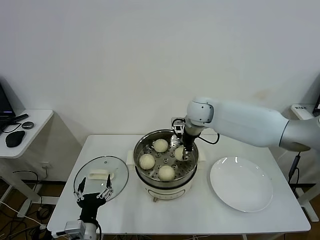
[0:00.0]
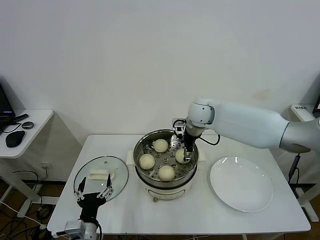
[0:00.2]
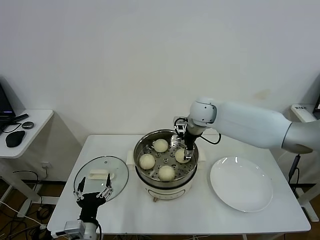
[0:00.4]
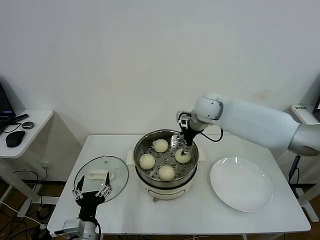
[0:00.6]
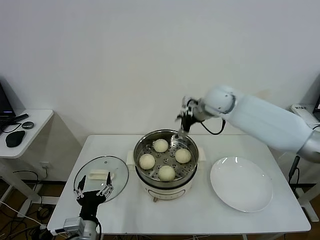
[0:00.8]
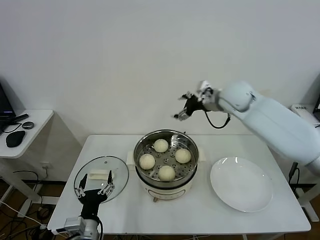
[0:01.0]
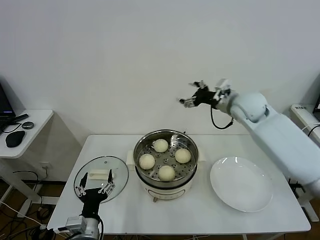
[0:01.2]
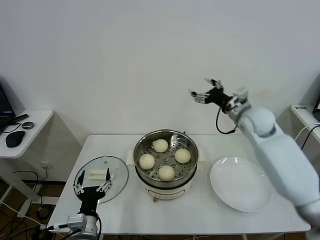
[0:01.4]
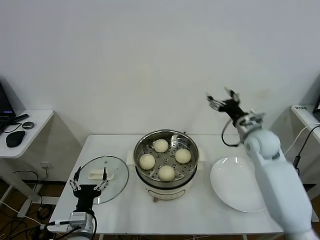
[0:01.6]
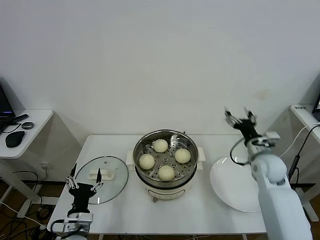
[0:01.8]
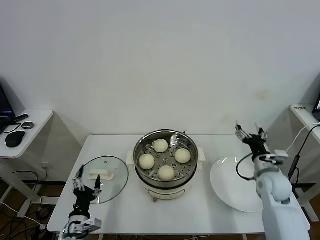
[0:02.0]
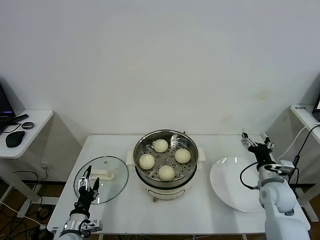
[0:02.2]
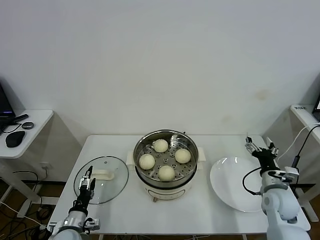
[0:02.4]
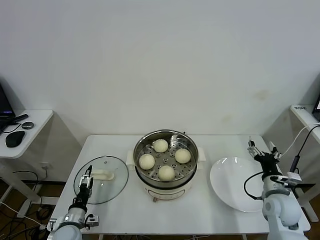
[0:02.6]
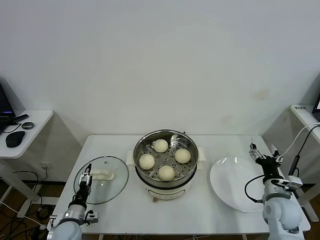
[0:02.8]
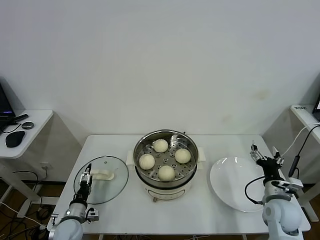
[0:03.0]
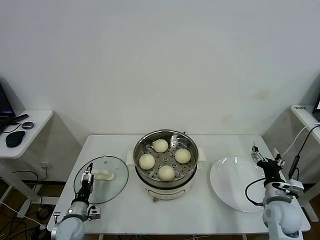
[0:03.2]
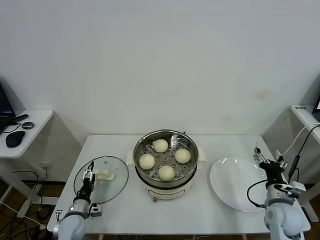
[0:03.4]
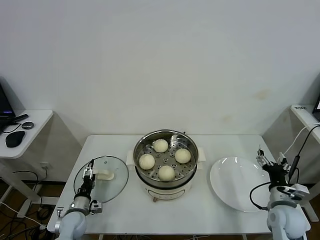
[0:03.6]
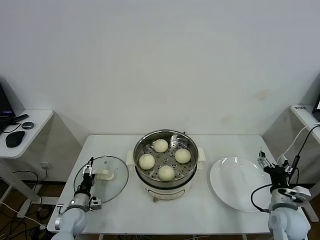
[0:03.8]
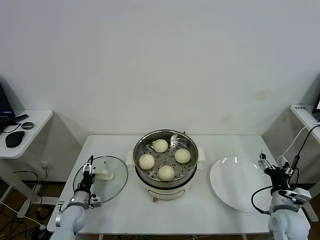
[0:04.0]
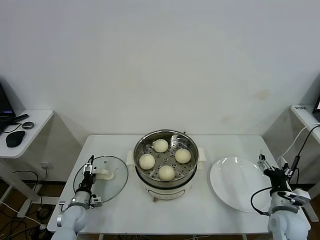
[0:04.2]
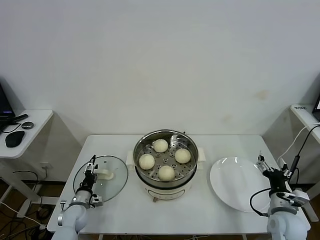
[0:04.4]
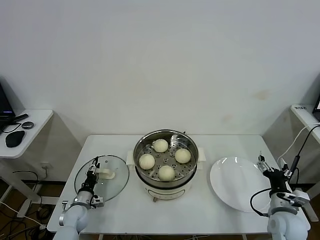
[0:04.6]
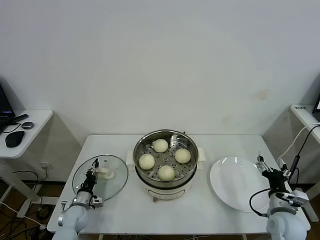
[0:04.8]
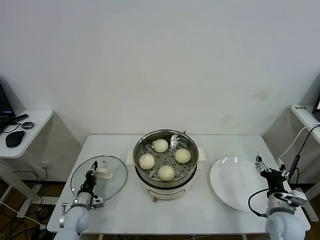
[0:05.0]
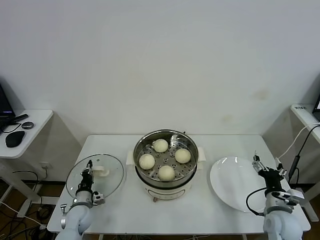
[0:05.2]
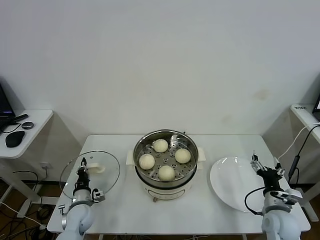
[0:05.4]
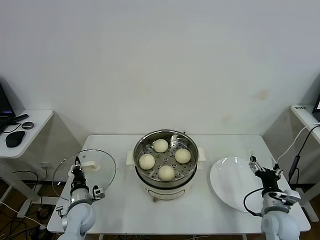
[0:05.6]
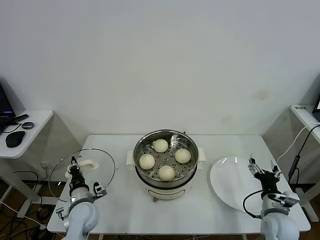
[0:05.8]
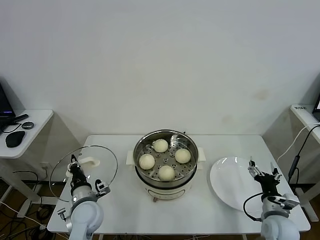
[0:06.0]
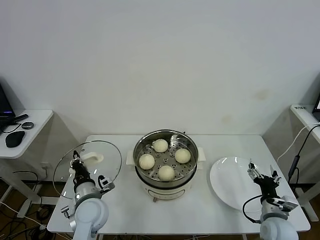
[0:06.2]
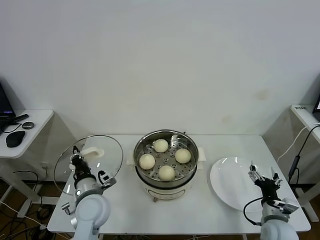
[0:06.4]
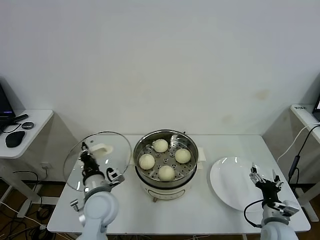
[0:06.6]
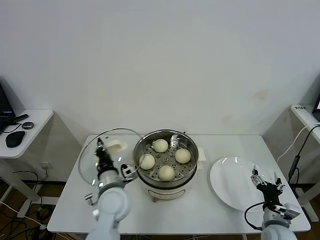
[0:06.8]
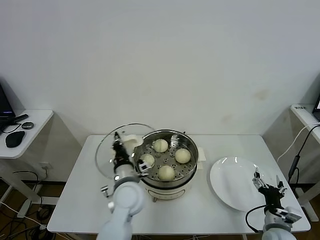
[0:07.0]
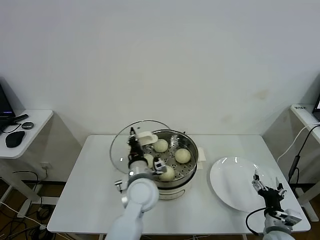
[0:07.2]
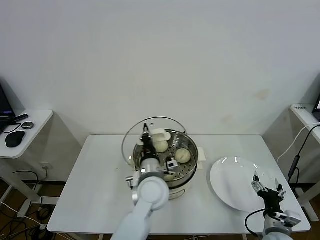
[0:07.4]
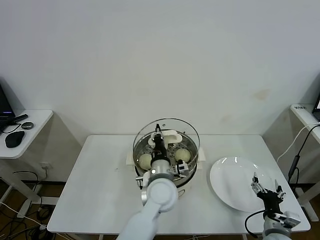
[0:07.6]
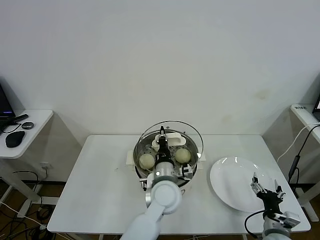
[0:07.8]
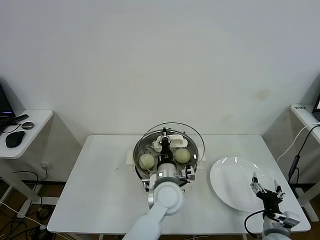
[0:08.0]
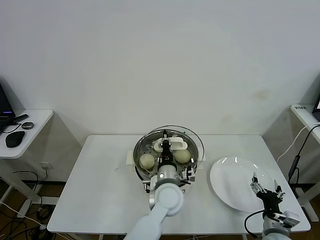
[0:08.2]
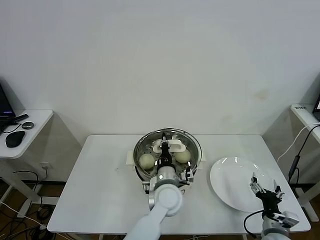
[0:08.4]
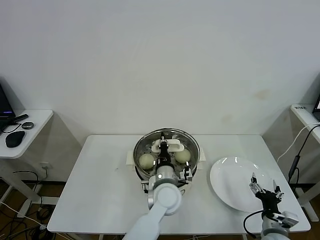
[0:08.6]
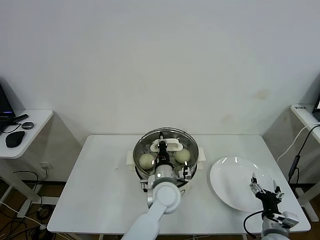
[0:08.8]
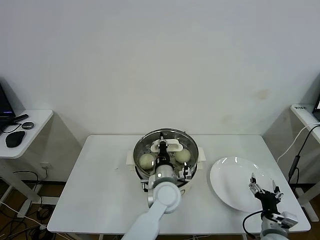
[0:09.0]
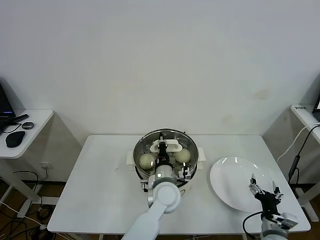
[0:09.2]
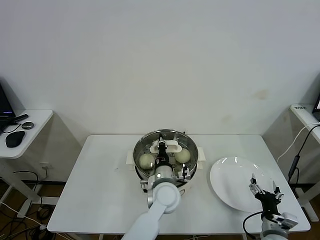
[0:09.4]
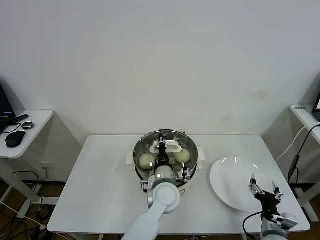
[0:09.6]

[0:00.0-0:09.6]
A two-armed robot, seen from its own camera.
Task of the whole recording: take steamed baozi put them in steamer.
Step, 0:01.0 to 0:05.0: Grasp the pot lid with left gripper.
0:00.0 to 0:01.6: The right gripper shifts about 20 cm to the right and backward, and opens up.
0:01.6 to 0:03.2: The right gripper shifts approximately 25 cm backward and downward. The left gripper moves downward, to the left and forward, about 20 cm.
0:03.2 to 0:04.8: The left gripper moves forward, about 5 cm, and closes up.
0:04.8 to 0:06.4: The left gripper shifts about 25 cm upward and to the right, and closes its fingers.
0:06.4 to 0:08.0: The left gripper is displaced to the right by some 20 cm.
0:08.0 to 0:09.6: The grippers stay close to where they were, moving slightly.

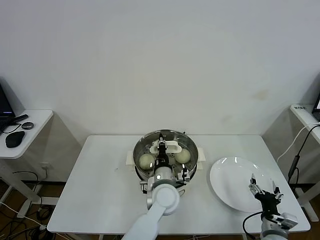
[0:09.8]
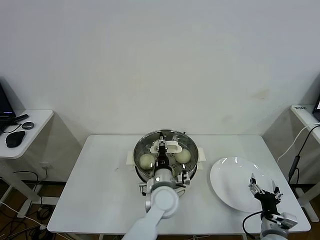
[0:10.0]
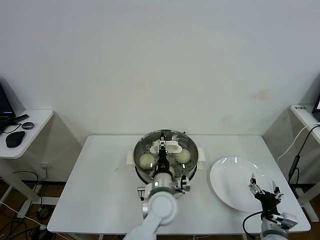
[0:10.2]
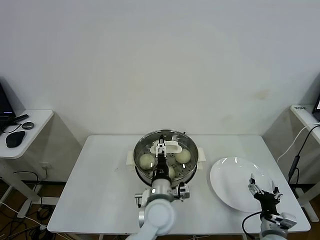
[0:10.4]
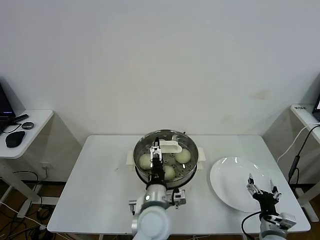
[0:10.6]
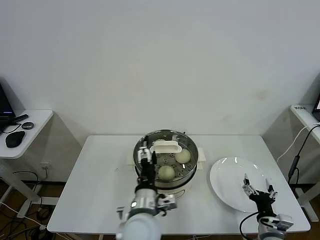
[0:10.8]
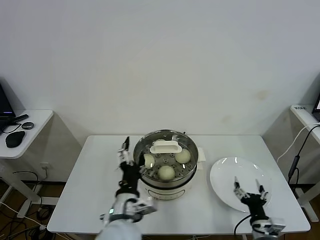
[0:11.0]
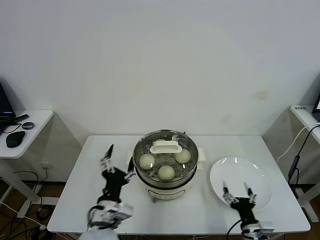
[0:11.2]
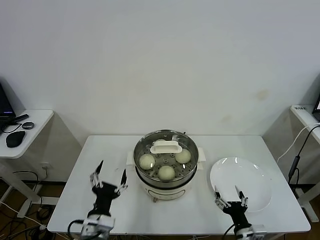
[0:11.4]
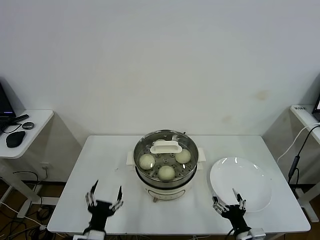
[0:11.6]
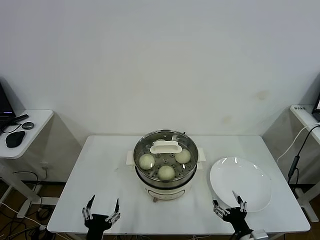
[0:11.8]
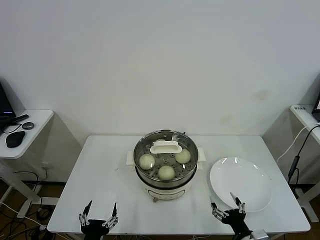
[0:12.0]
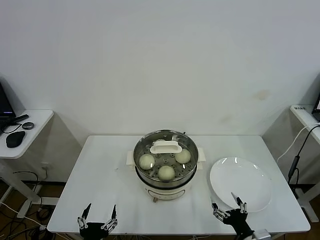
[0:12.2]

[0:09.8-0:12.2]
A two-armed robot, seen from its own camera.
Task of the whole recording: take steamed baozi put them in steamer.
0:09.8 to 0:11.0: The left gripper is displaced backward, to the left and upward by about 15 cm, and opens.
0:11.0 to 0:12.2: The right gripper ends up about 5 cm from where it was. Meanwhile the left gripper goes about 20 cm to the left, backward and downward.

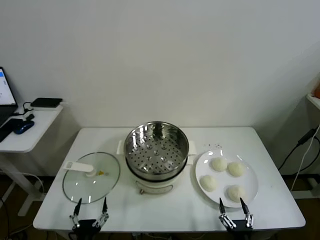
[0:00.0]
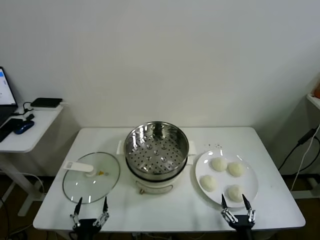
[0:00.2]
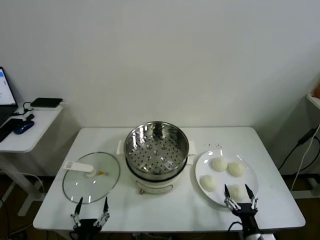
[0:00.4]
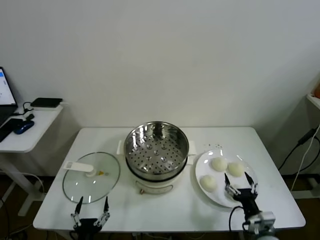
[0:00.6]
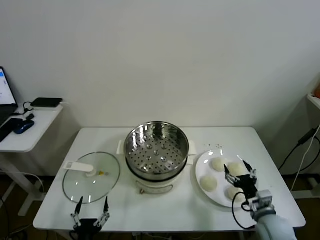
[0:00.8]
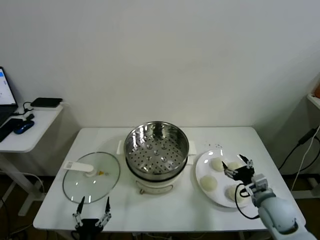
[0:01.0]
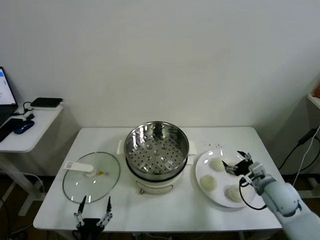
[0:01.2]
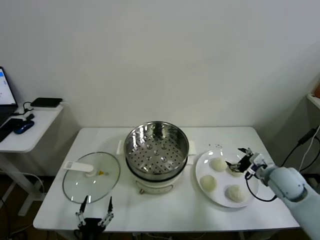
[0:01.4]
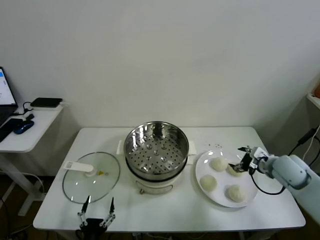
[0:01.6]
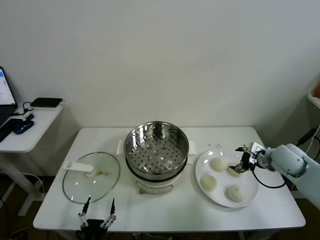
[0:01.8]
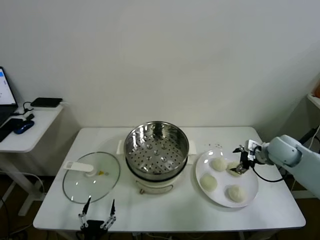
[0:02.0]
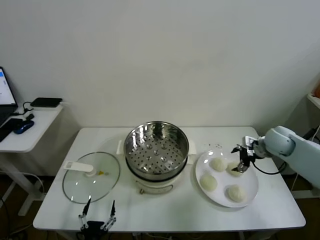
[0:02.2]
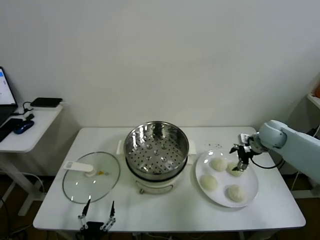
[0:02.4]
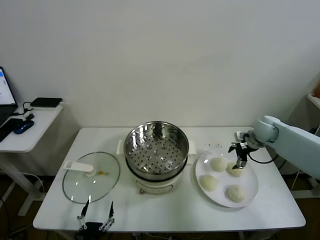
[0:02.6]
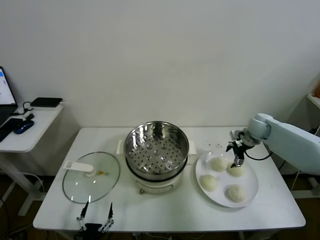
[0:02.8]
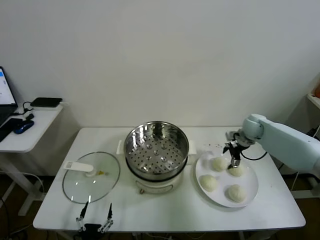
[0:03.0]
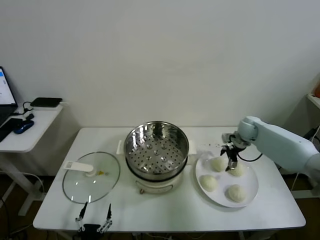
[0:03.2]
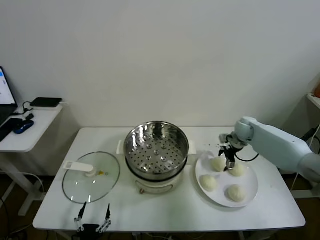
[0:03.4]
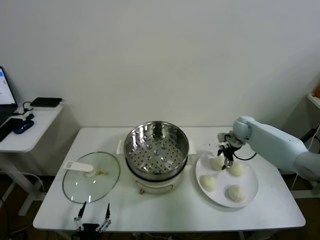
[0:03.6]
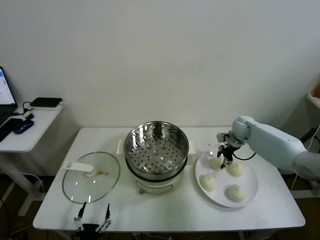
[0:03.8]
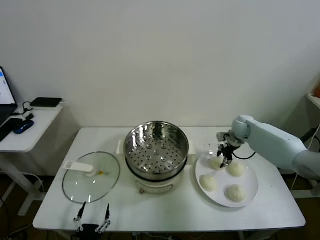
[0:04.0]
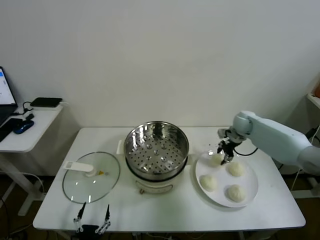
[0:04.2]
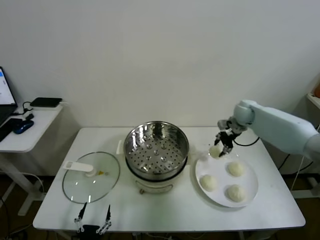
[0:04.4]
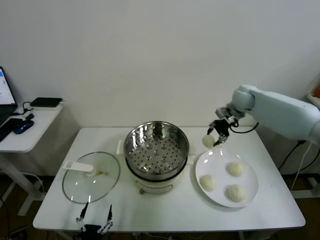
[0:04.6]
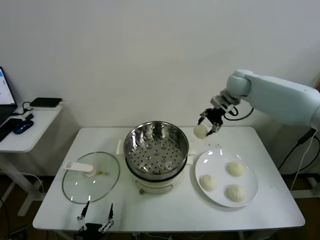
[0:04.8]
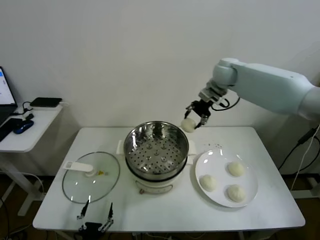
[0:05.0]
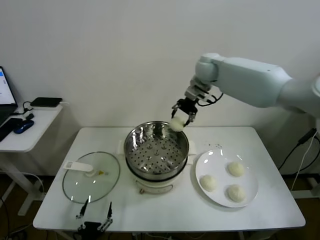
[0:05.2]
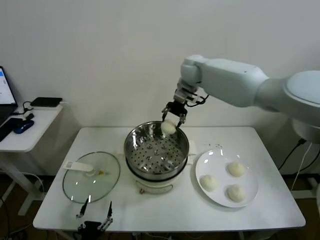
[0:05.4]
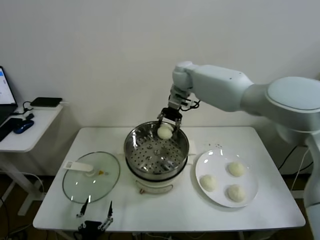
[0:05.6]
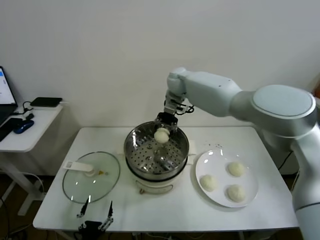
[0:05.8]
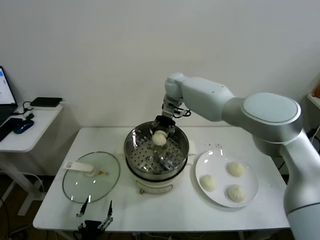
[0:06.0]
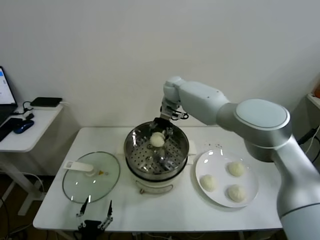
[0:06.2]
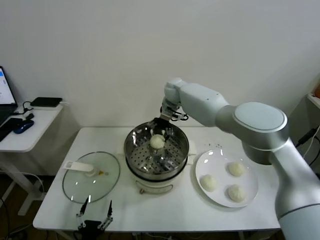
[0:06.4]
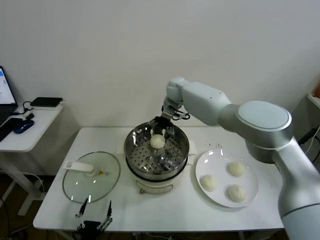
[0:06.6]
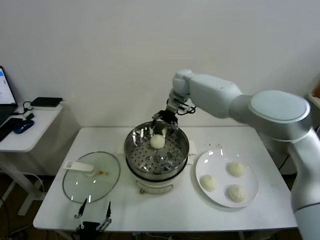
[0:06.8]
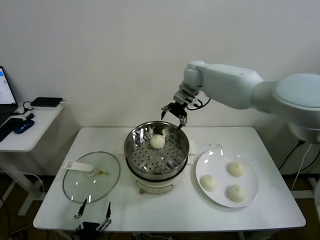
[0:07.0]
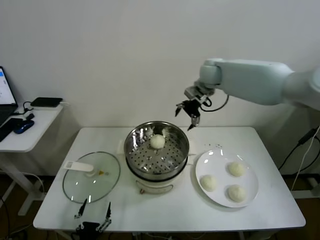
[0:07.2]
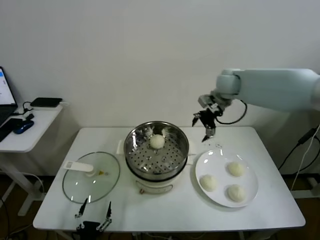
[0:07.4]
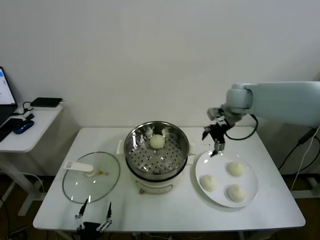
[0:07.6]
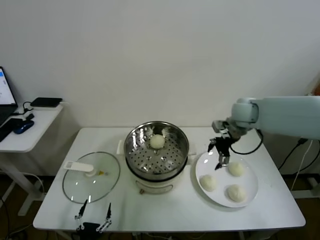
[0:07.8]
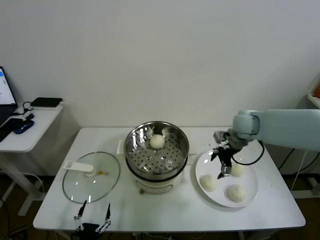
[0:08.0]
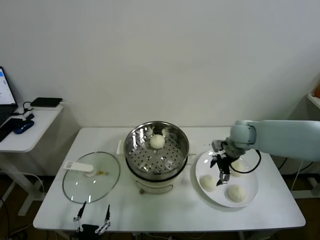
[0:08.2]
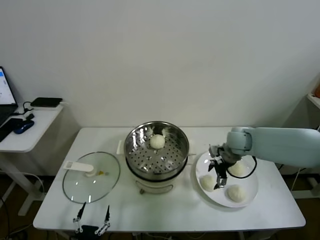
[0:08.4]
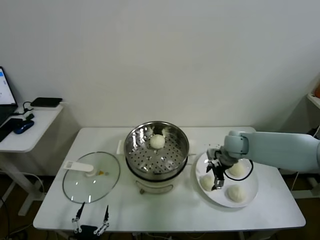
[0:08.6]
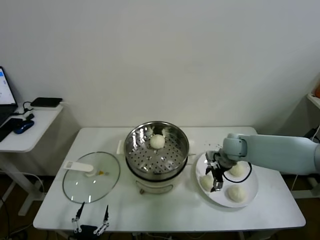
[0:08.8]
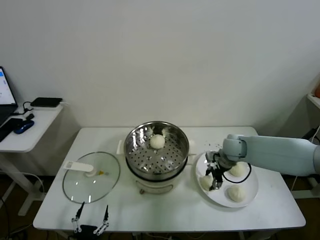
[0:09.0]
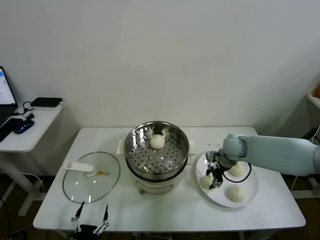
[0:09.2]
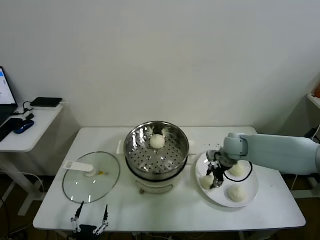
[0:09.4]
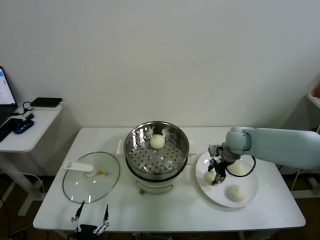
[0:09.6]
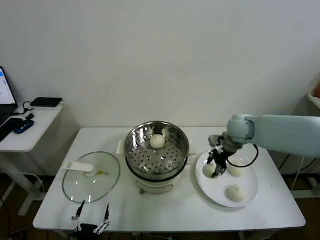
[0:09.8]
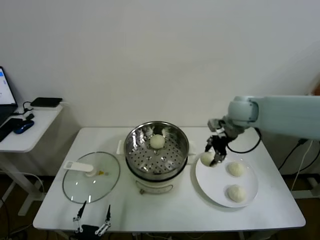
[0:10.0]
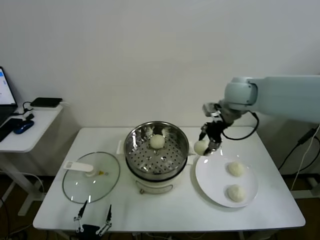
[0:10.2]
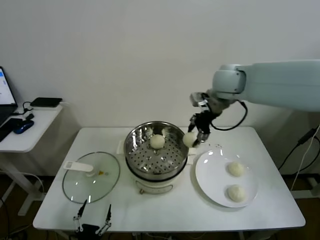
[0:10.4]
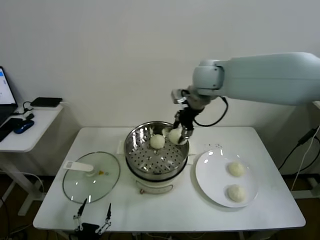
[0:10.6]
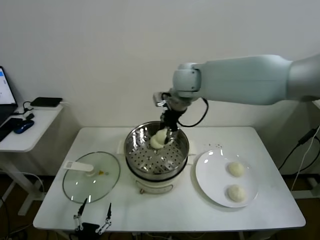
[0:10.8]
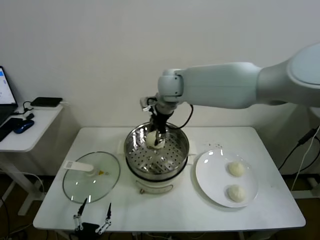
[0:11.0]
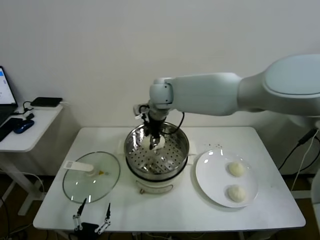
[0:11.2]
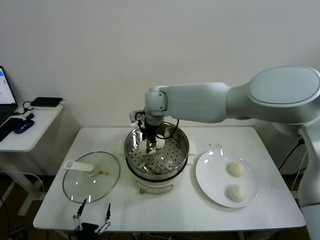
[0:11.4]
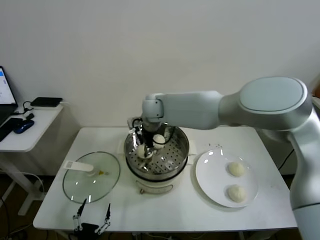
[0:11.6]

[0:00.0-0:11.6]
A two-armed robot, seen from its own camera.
Task of the whole recording: take steamed baozi put them in steamer.
Step, 0:00.0 to 0:03.6: Grasp the baozi in the plate with right gripper.
Step, 0:03.8 to 0:06.4: Place the baozi on the steamer with right gripper.
Step, 0:06.6 to 0:09.0: Grasp the baozi in the plate with right gripper.
0:01.4 to 0:02.8: The right gripper shifts approximately 20 cm forward.
0:02.8 to 0:04.4: The right gripper moves upward and to the left, roughly 10 cm, and closes.
0:04.4 to 0:05.8: The right gripper heads to the left, covering roughly 25 cm.
0:05.8 to 0:07.2: The right gripper heads to the right, covering about 15 cm, and opens.
0:07.2 to 0:08.8: The right gripper moves downward and backward, roughly 25 cm.
0:08.8 to 0:10.2: The right gripper travels upward by roughly 25 cm, and closes up.
0:10.2 to 0:11.6: The right gripper goes about 25 cm to the left.
